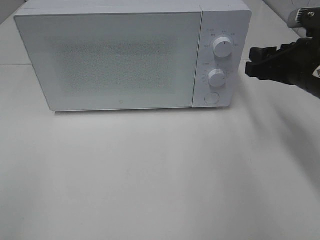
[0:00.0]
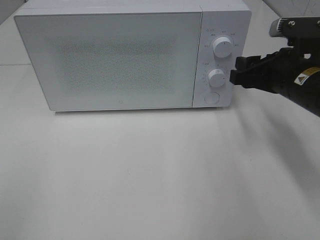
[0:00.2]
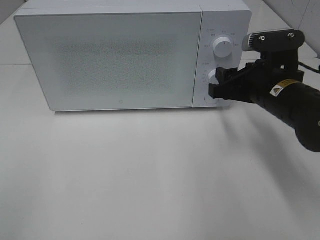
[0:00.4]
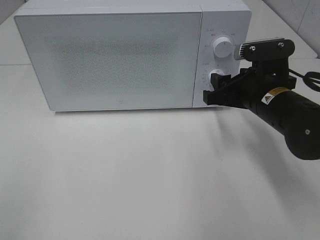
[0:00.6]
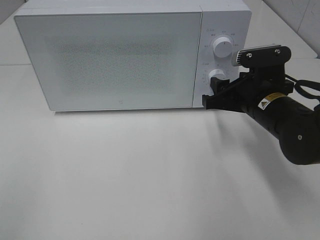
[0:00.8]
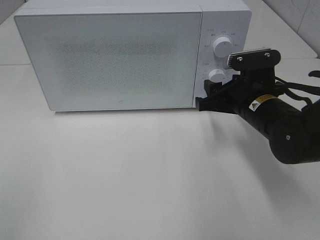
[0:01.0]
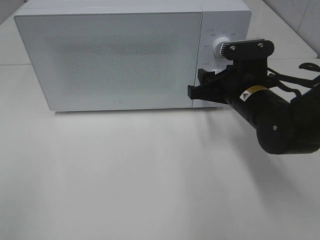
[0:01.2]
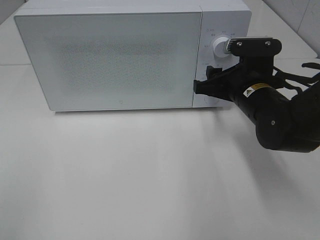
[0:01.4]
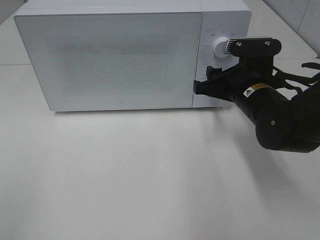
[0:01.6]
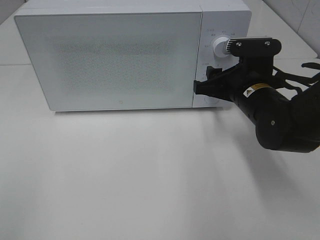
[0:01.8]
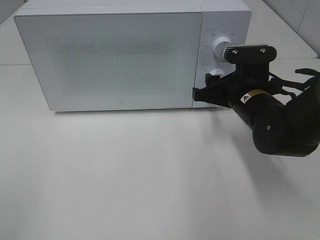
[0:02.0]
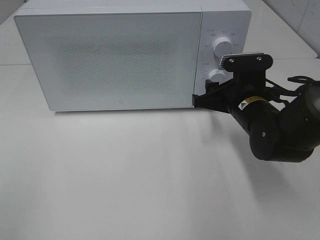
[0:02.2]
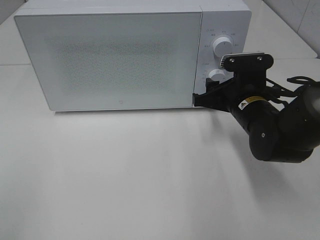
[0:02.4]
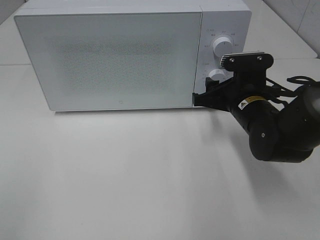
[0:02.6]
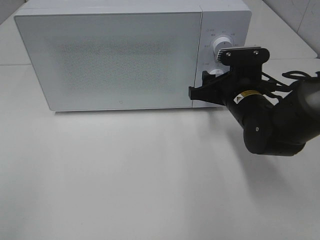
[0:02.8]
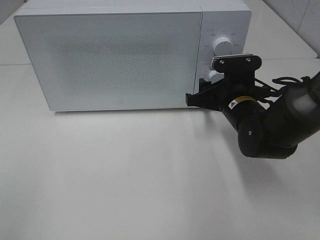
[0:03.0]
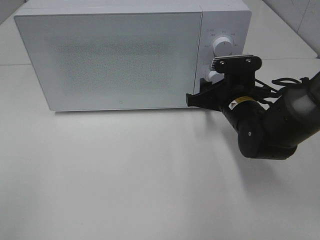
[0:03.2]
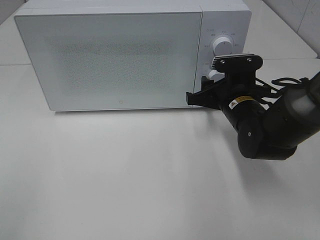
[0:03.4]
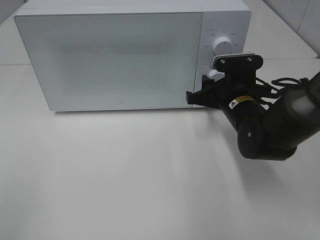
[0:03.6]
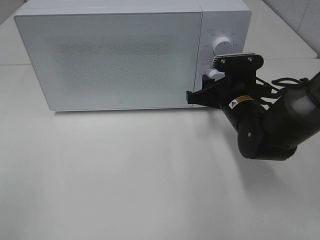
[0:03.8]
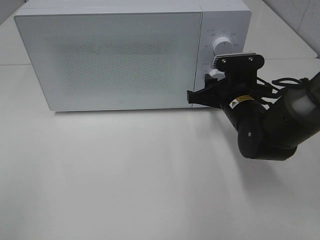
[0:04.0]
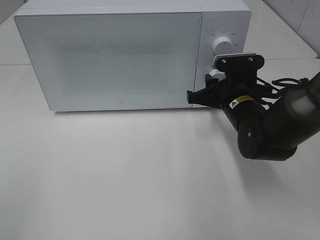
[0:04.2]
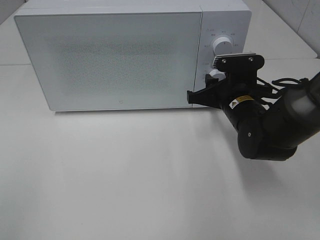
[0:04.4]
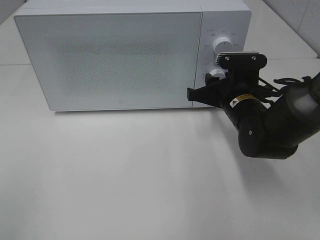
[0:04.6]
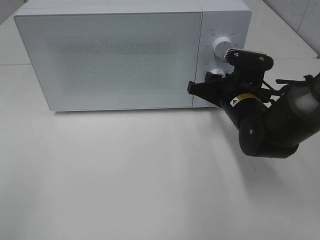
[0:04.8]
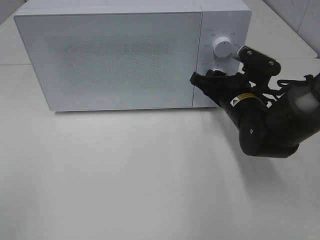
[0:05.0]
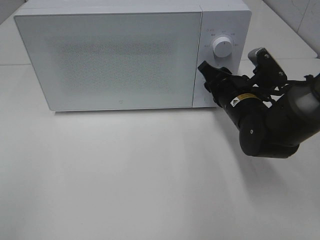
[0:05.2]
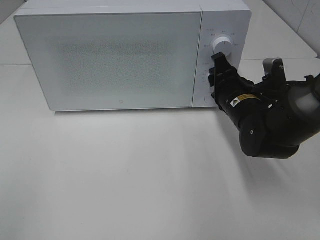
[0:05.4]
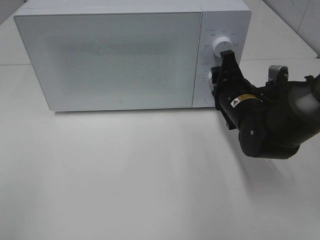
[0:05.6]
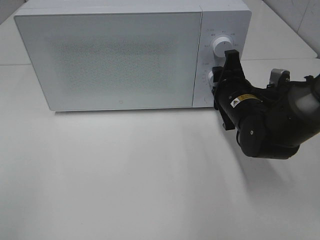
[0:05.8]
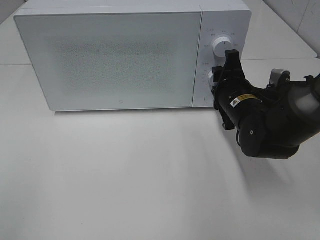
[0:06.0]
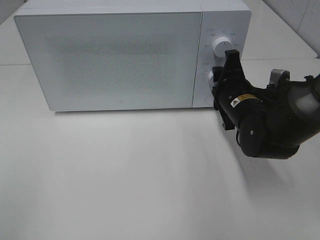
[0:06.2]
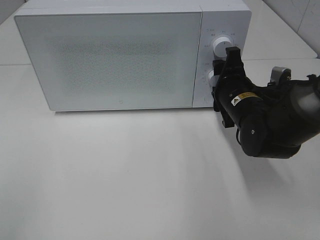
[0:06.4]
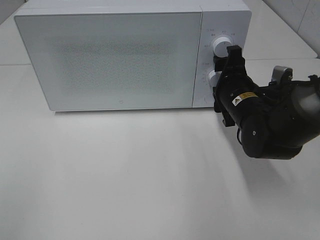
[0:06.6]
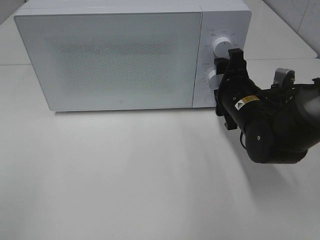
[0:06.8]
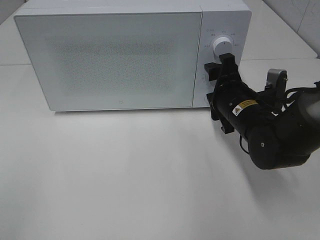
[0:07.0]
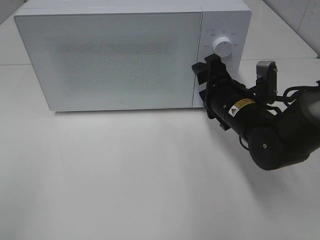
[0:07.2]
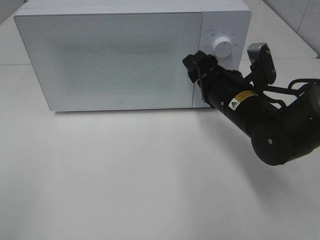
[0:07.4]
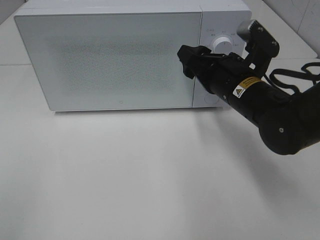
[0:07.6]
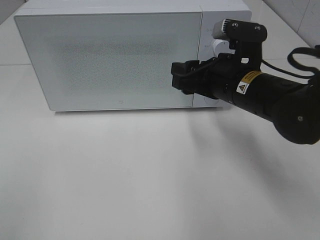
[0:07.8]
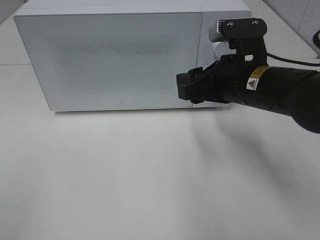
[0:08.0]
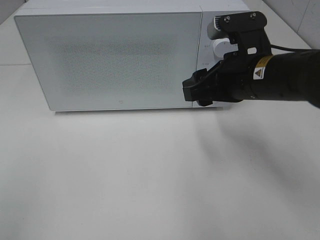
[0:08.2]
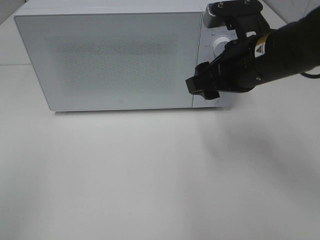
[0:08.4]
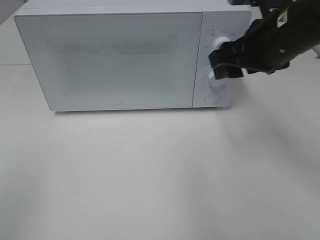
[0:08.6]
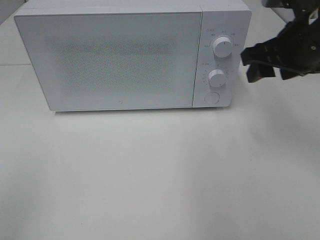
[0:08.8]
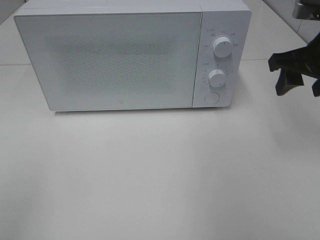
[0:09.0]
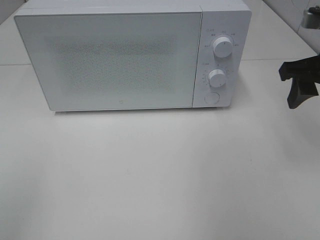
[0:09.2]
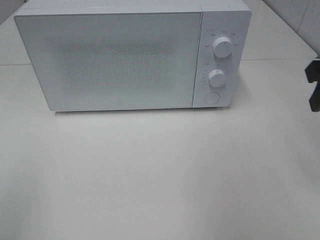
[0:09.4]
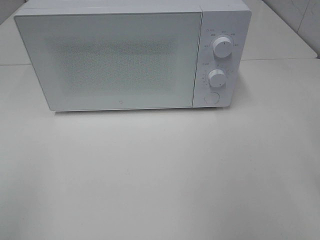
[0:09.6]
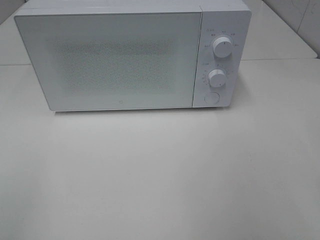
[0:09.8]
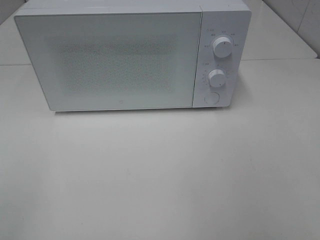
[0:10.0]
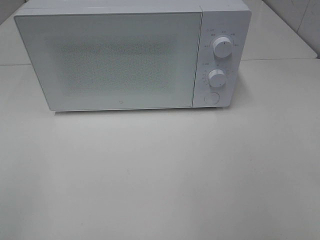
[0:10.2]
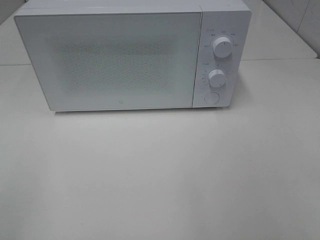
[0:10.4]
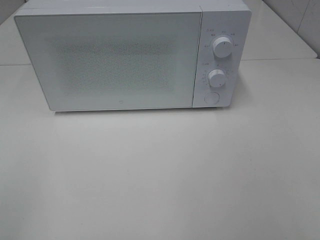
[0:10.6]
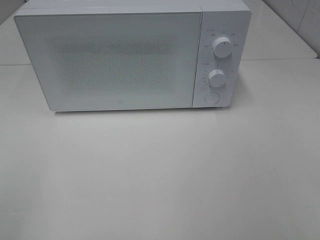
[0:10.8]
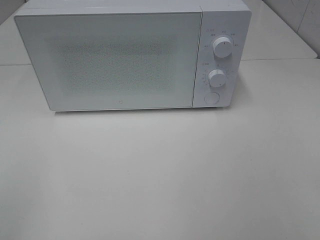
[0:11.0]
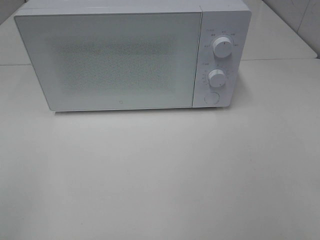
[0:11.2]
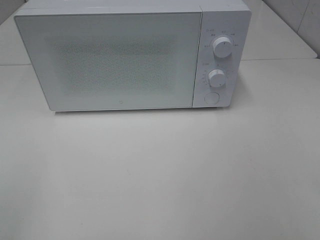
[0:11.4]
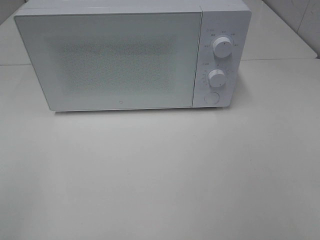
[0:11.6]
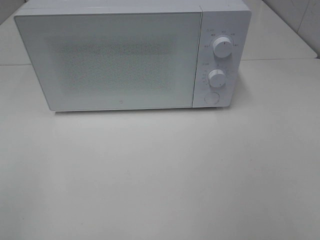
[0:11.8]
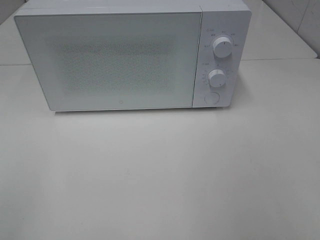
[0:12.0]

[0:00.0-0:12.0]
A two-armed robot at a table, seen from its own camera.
Task of the whole recording: Heat the burger.
Step, 0:00.0 to 0:06.2: Right hand: twist timer button.
0:00.0 to 0:01.6: The right gripper moves to the left, roughly 5 cm.
0:01.6 to 0:03.0: The grippers make only small movements.
0:03.0 to 0:04.4: Both grippers stay put.
0:06.0 to 0:07.6: The right gripper travels upward by roughly 5 cm.
0:07.6 to 0:09.0: The right gripper goes roughly 15 cm to the right and upward.
0:09.0 to 0:10.4: The right gripper goes some 25 cm backward.

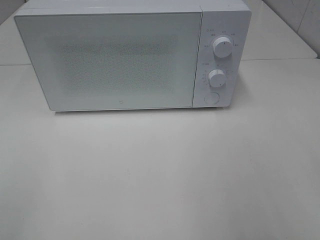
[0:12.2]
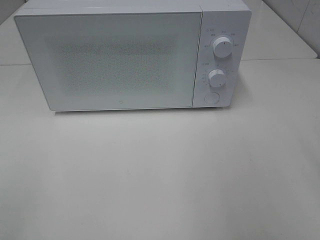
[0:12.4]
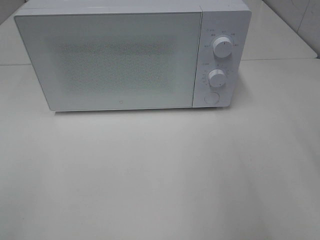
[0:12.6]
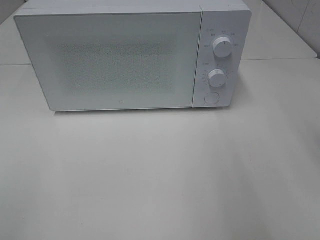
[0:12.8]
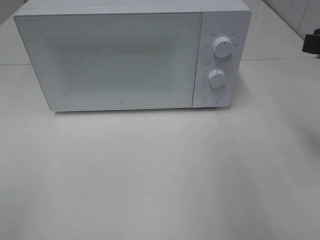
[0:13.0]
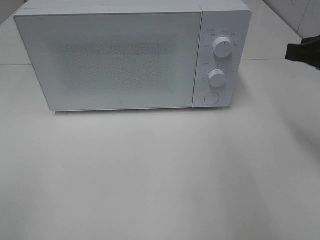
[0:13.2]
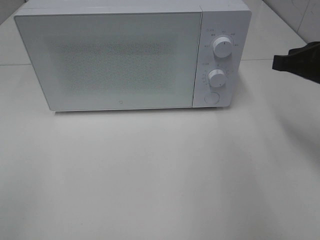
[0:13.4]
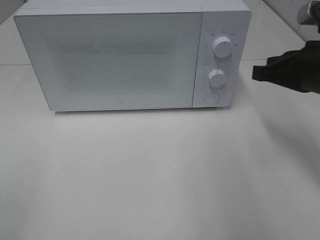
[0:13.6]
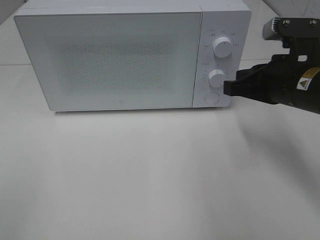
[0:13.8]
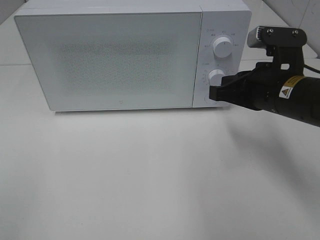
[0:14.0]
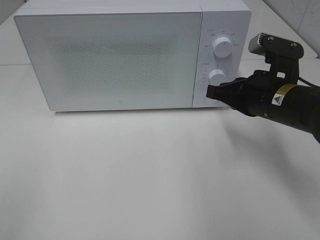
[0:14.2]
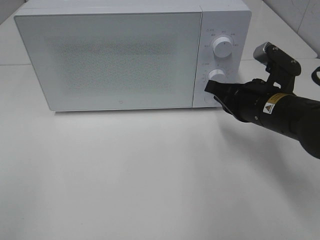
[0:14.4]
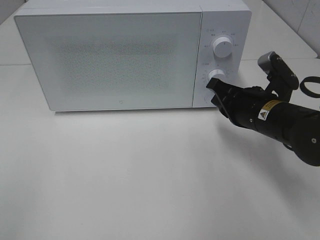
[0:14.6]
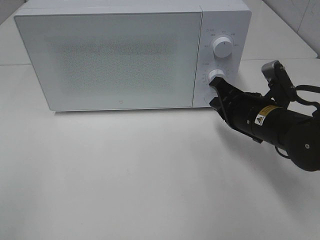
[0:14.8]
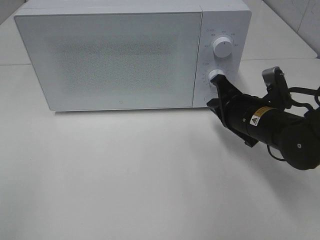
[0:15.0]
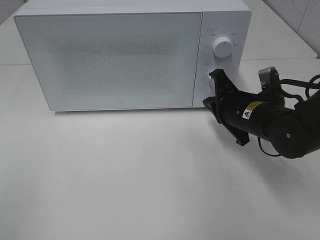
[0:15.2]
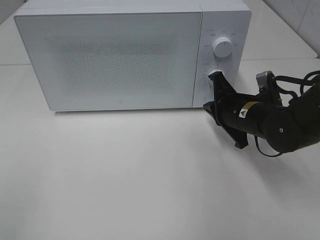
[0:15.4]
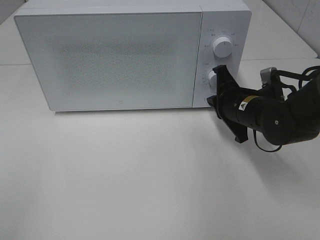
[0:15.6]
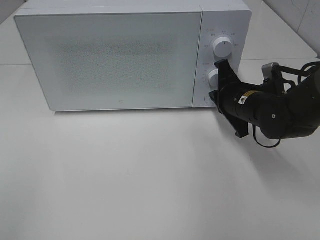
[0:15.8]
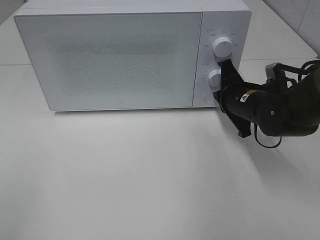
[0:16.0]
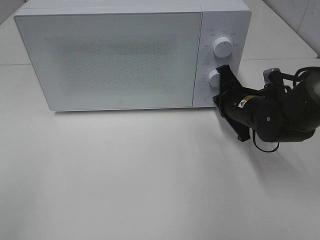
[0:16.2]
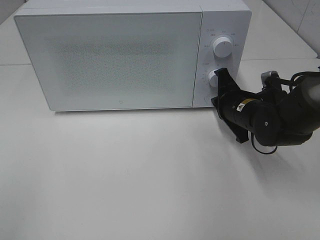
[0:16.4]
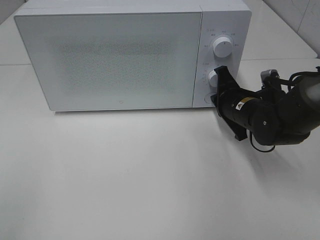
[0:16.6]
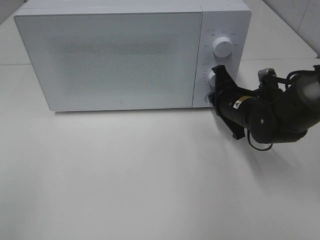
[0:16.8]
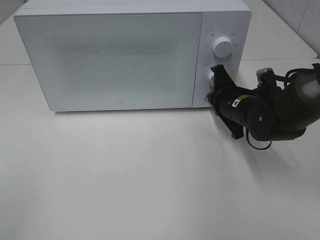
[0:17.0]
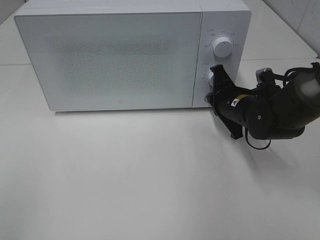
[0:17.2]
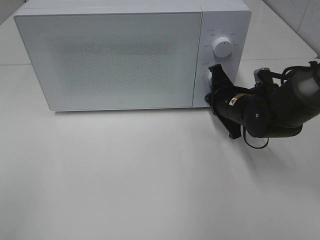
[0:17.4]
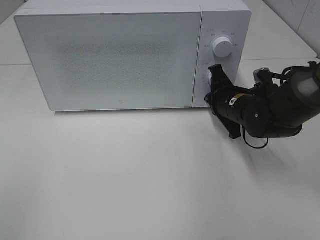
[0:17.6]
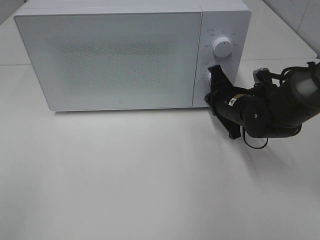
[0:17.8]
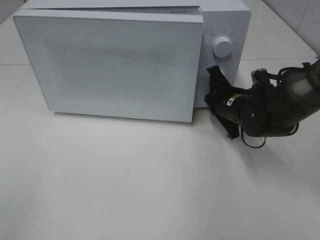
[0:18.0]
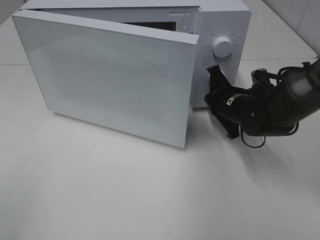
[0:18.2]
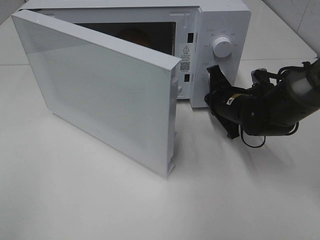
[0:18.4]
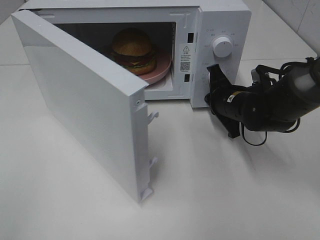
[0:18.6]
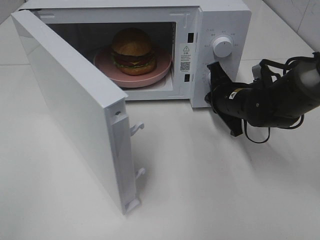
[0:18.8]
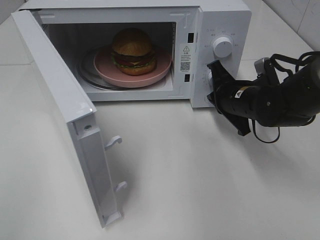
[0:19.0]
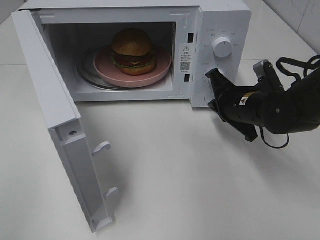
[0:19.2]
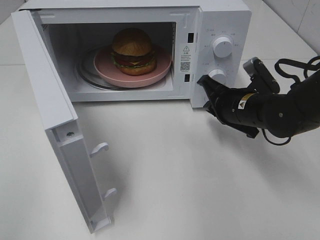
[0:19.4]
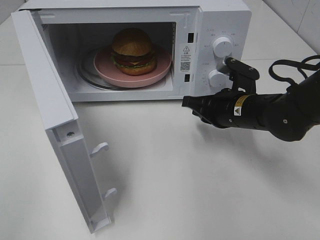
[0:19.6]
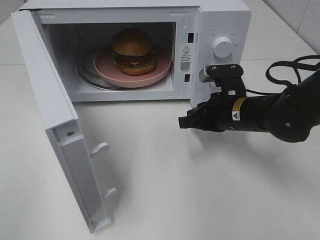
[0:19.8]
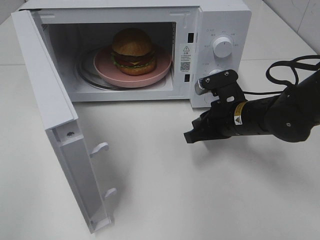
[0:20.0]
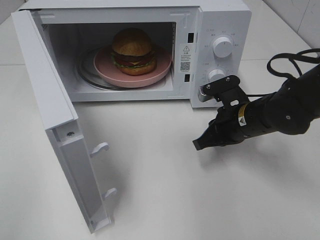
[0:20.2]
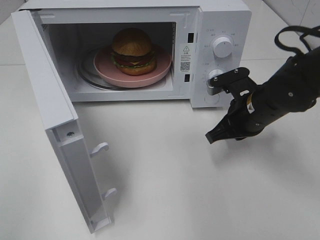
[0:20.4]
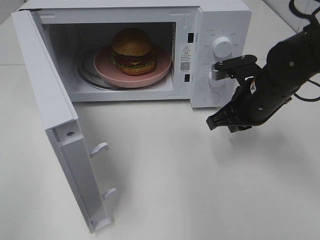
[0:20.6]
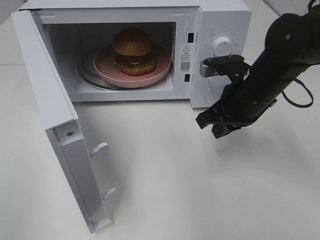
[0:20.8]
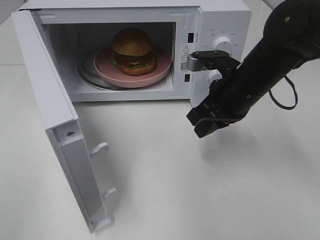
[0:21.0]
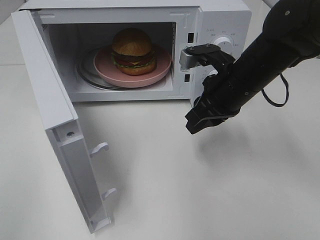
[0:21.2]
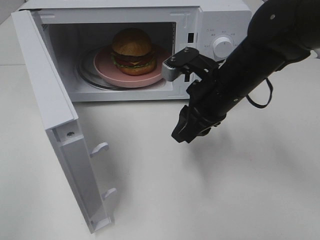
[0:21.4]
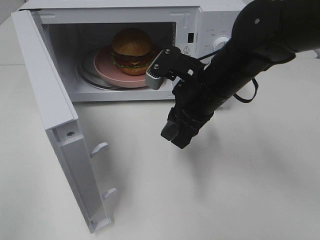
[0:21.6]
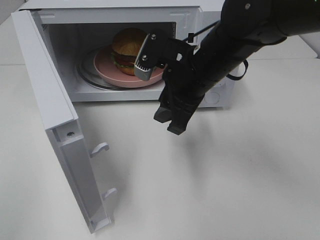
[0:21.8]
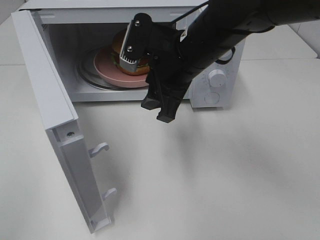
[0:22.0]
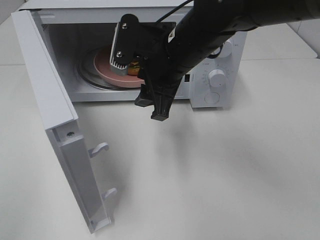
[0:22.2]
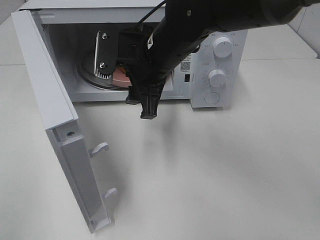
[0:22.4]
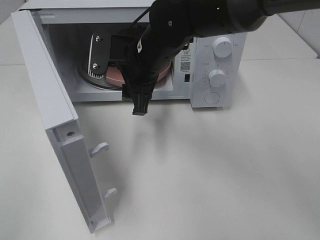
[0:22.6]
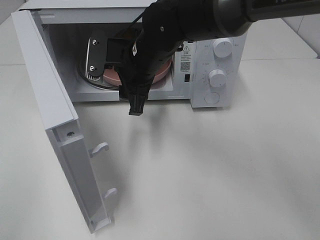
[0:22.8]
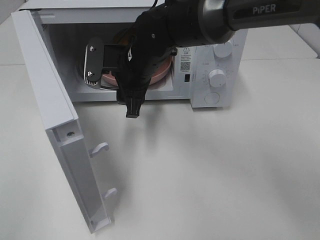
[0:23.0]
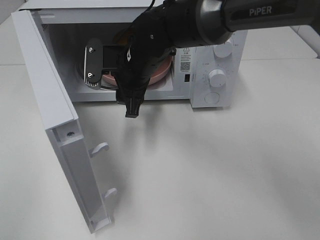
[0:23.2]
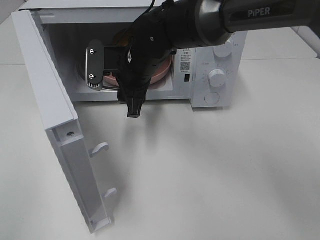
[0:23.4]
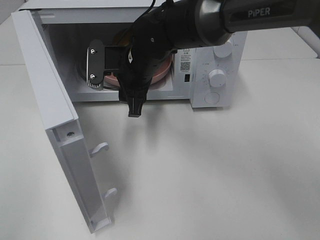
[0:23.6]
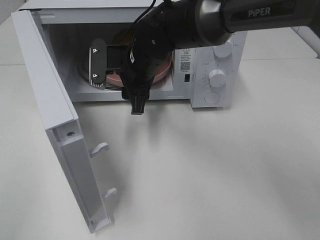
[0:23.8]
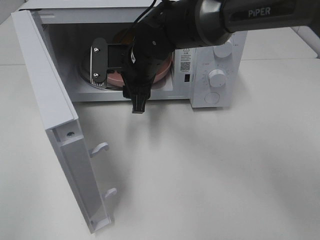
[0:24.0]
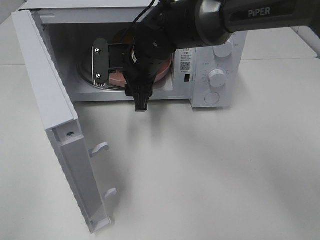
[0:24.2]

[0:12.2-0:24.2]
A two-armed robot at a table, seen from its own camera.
Task of the whole recording: Heat the burger.
Step, 0:12.2 to 0:18.8: Right hand: press the switch.
0:12.2 to 0:13.8: The right gripper goes approximately 20 cm forward, downward and to the left, and closes up.
0:13.8 to 0:15.2: The right gripper shifts approximately 10 cm downward.
0:15.2 to 0:18.2: The grippers stay close to where they were, moving slightly.
0:18.2 to 0:19.8: The right gripper shifts approximately 5 cm backward.
0:19.8 to 0:21.2: The right gripper moves upward, roughly 5 cm.
0:21.2 to 0:22.6: The right gripper goes some 15 cm to the left, and opens up.
0:22.6 to 0:24.2: There are only small adjustments of the grippers.
